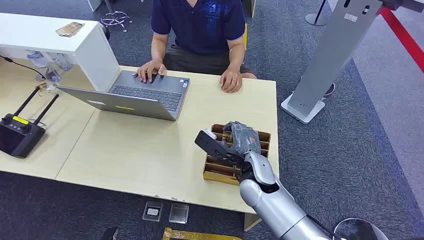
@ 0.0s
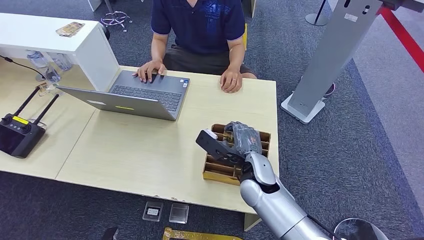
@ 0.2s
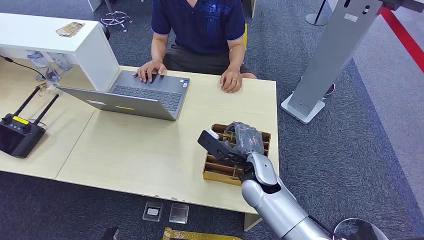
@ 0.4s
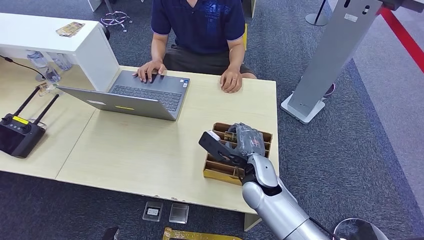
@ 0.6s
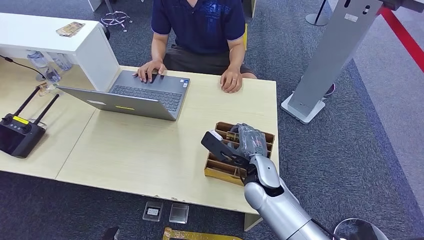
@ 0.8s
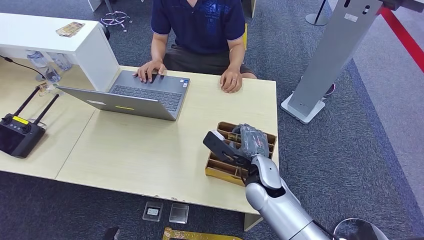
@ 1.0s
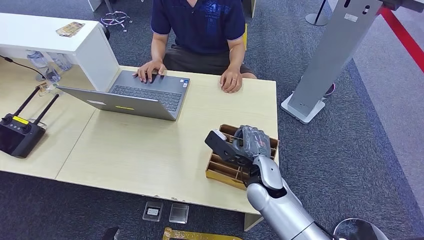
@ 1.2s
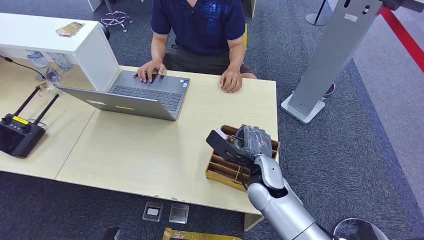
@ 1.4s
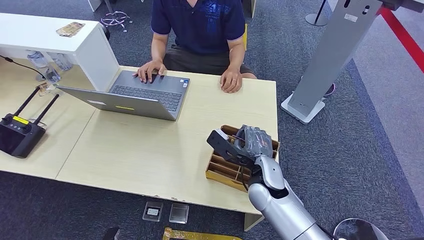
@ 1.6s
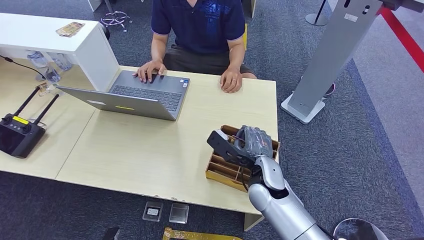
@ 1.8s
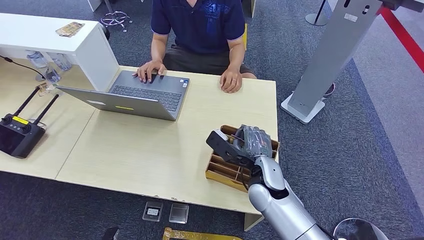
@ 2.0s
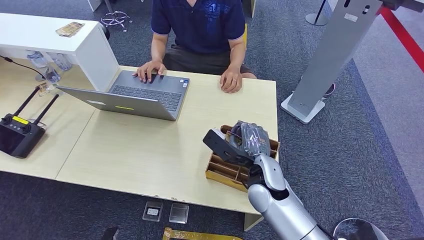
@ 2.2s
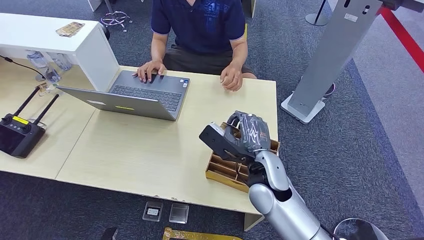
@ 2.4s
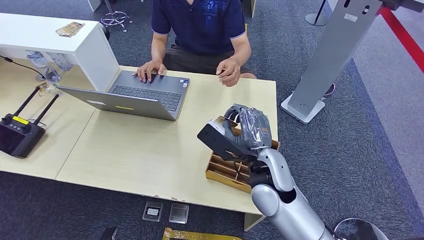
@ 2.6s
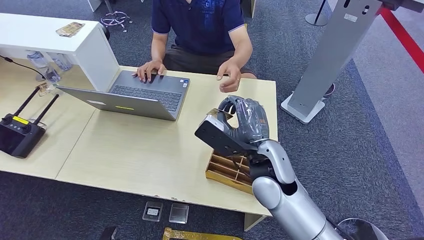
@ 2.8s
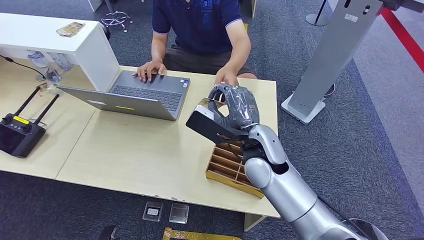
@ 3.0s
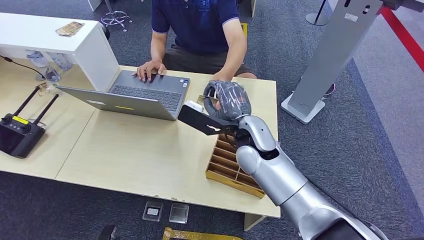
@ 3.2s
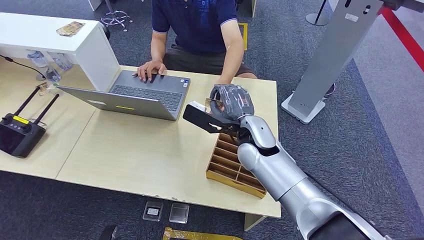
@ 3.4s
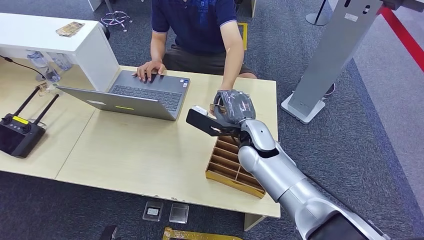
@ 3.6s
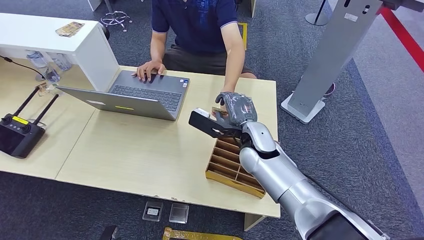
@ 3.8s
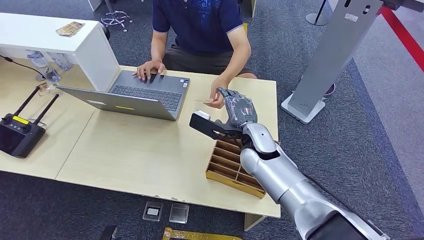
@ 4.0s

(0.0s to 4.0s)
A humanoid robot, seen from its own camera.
Step, 0.0s - 2.2s: Pick up the room card from the card holder.
Step, 2.8s - 4.0s: Hand the room card to the target.
1.4s - 2.6s: The right hand shifts about 10 cm upward.
2.6s - 4.0s: The right hand heads forward, covering roughly 10 cm.
